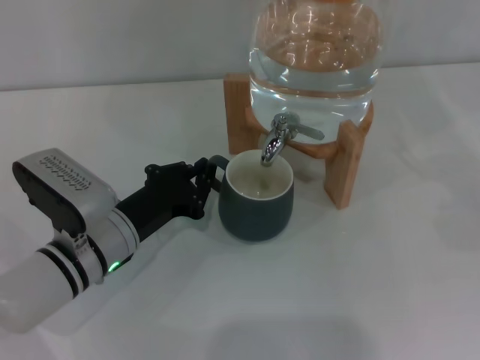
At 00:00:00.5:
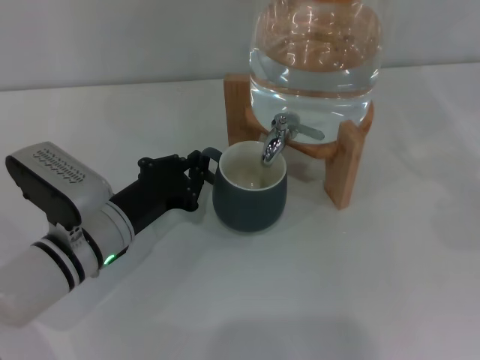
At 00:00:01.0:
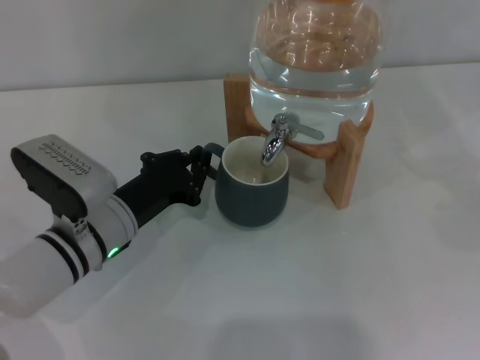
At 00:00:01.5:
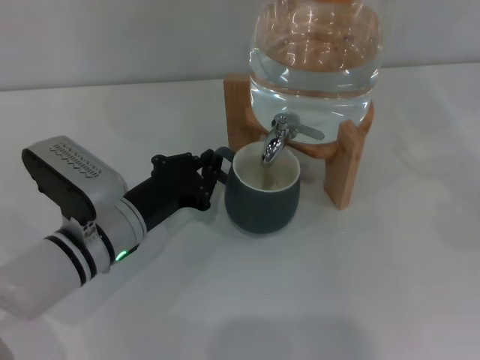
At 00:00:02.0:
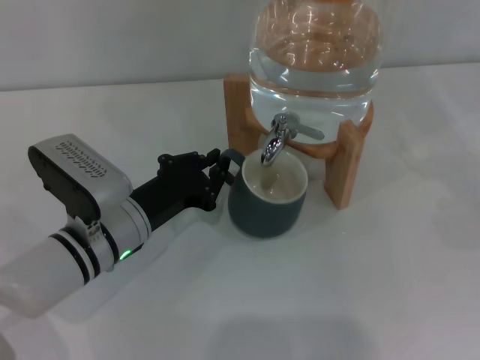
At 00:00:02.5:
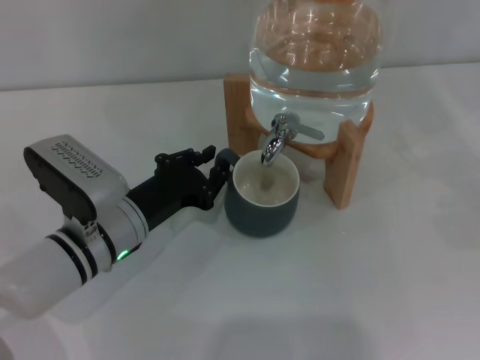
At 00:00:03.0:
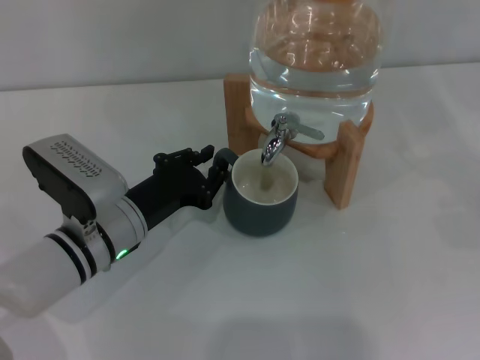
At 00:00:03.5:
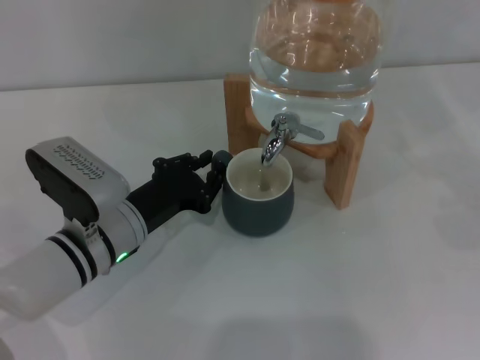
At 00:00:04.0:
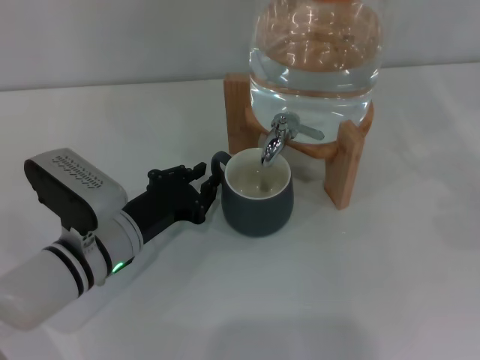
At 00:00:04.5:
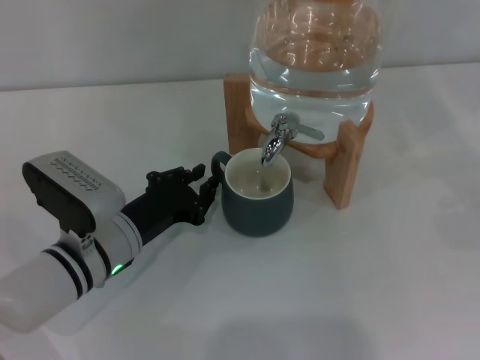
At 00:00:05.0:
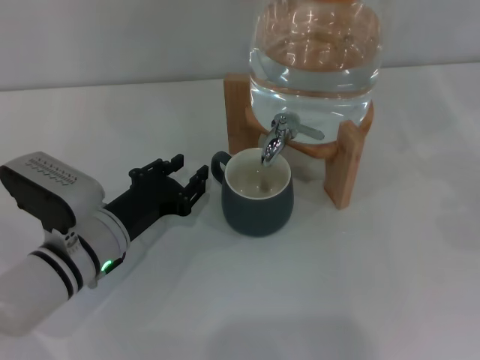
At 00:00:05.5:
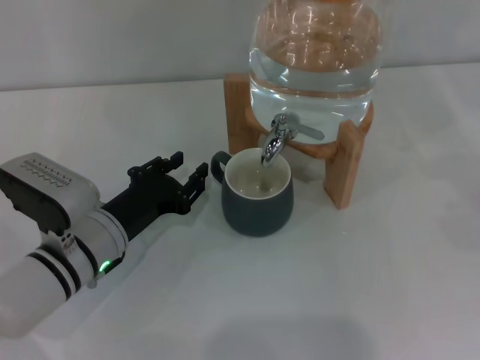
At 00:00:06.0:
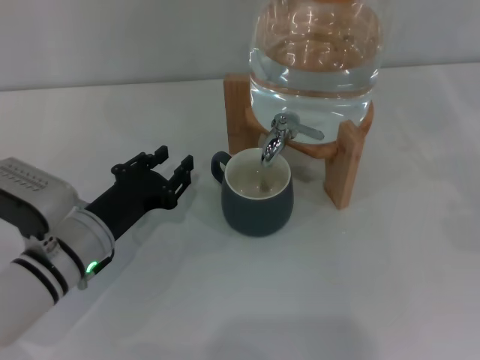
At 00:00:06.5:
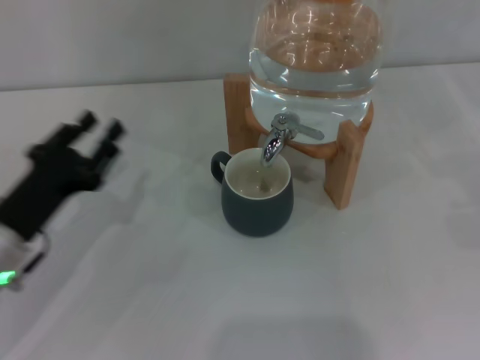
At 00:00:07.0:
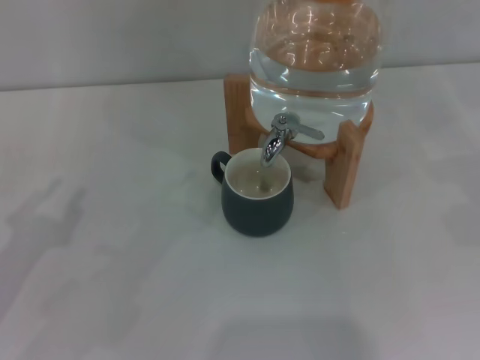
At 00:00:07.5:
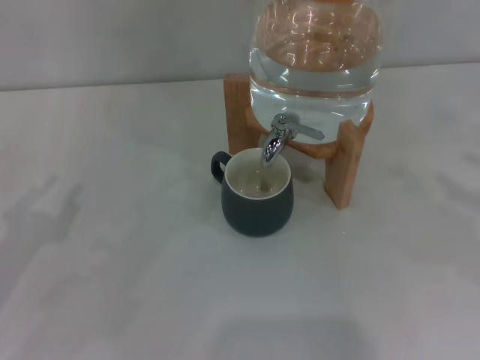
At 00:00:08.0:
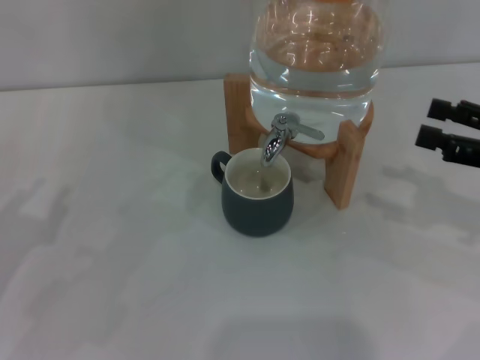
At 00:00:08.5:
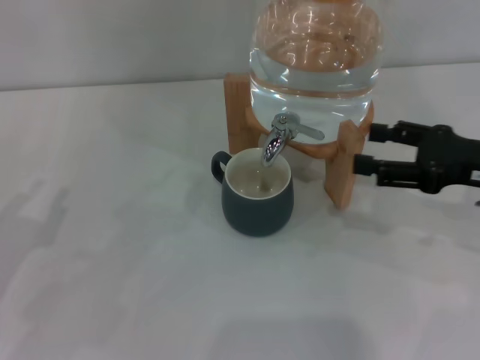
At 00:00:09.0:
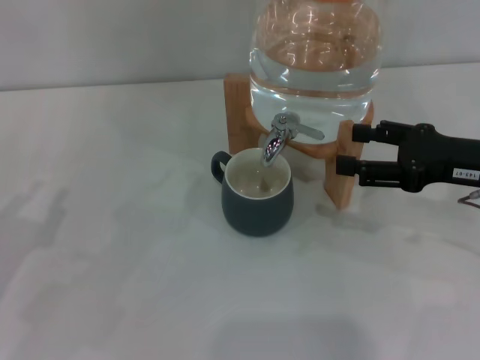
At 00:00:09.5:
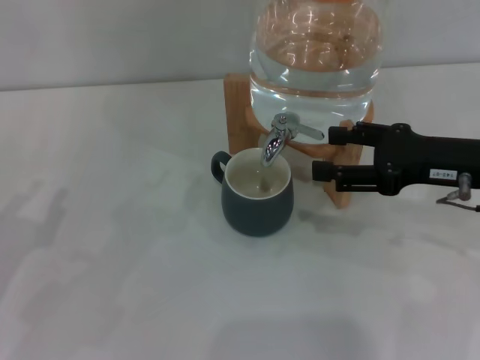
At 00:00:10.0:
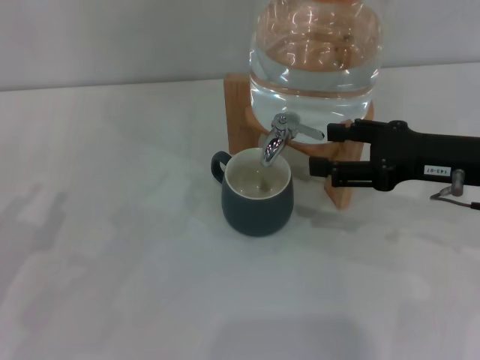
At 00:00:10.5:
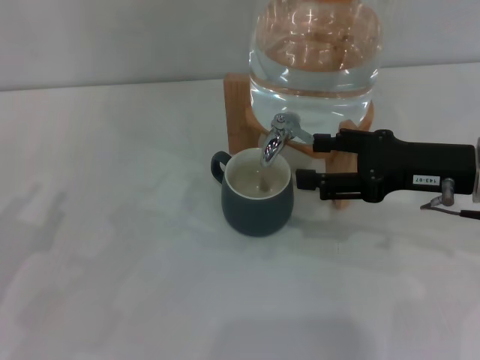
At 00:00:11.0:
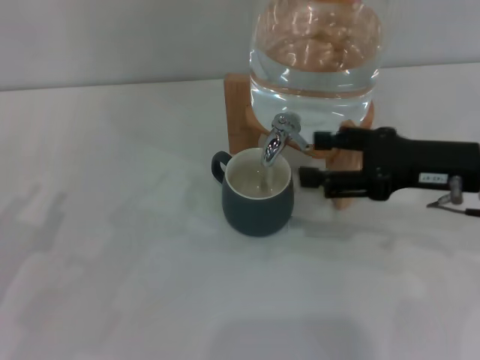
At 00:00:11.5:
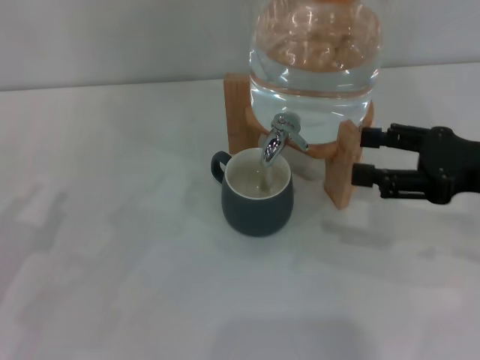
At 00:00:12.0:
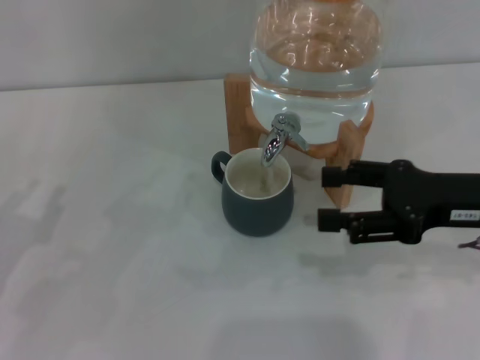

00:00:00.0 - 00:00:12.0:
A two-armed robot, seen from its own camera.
Task of the whole recording: the left gripper pick up the black cup and place it horizontally under the faucet, the right gripper turn on the faucet to fill the cup, and then turn off the faucet.
Step, 00:00:00.0 - 00:00:05.0: Move the cup beneath the water dispenser nozzle with the left gripper.
Step, 00:00:05.5 - 00:00:11.5: Open the dispenser valve and fill the cup with water with the right gripper.
00:00:00.0 - 00:00:06.0: There are only small adjustments of the grippers.
00:00:06.0 - 00:00:08.0: The left gripper is displaced to the left, backward and upward by about 15 cm. Meanwhile the right gripper moves to the left, approximately 10 cm.
00:00:08.0 - 00:00:10.0: The right gripper travels to the left by about 10 cm.
00:00:10.0 - 00:00:12.0: There are only small adjustments of the grippers.

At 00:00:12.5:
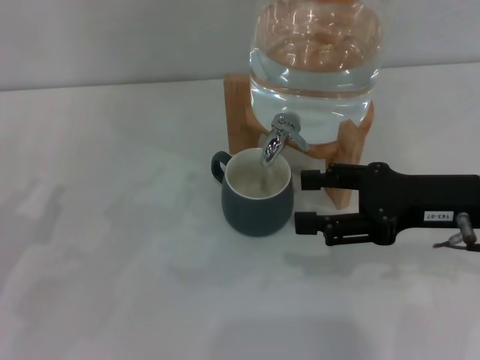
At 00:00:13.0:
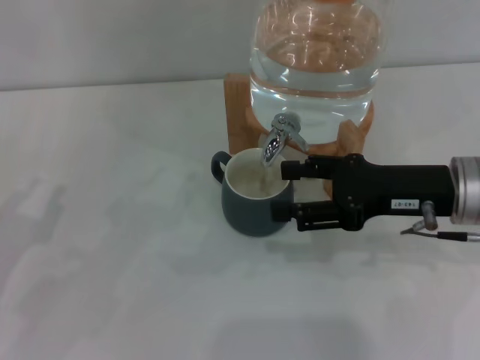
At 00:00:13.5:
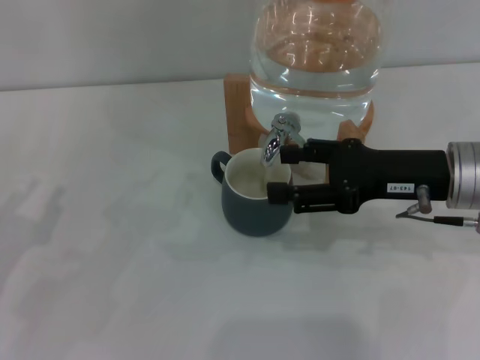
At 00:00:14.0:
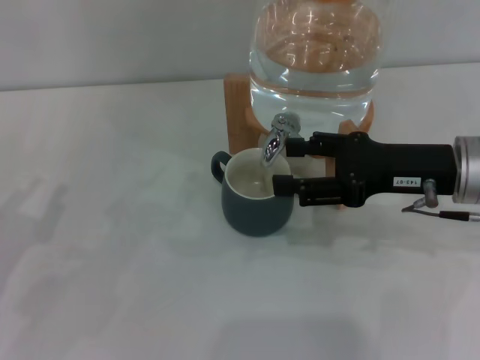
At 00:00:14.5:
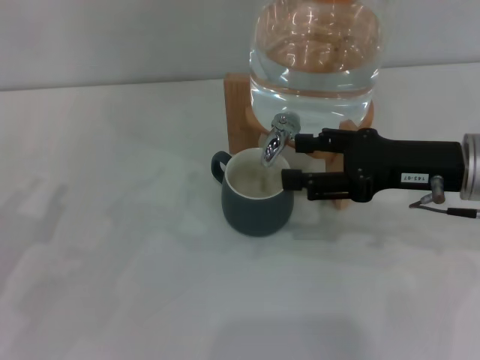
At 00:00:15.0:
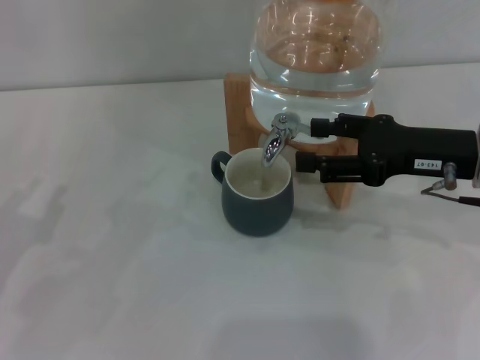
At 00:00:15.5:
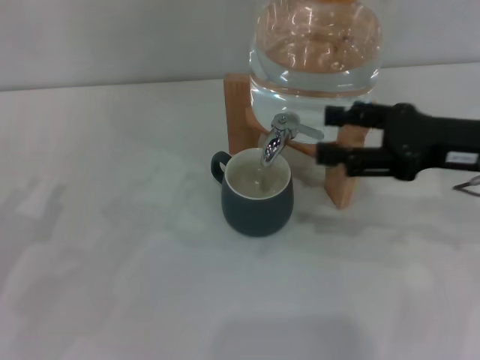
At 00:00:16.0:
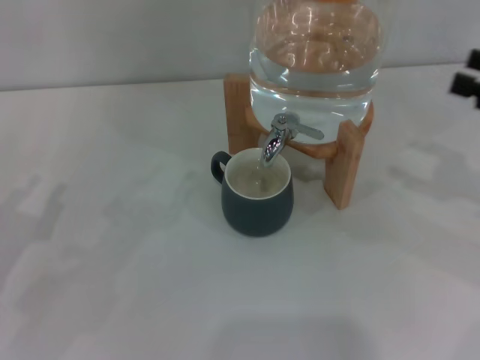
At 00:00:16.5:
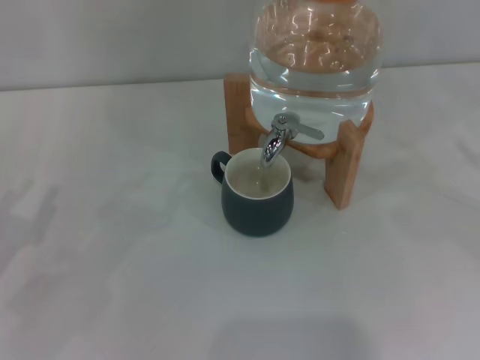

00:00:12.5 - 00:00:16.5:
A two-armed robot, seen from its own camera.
Task of the whole recording: the left gripper pick up the black cup and place it horizontally under the faucet, the right gripper turn on the faucet to fill the cup, and then turn off the faucet.
Step, 00:00:12.5 - 00:00:15.5: Close the dispenser valve with the right gripper.
00:00:12.5 - 00:00:14.5: The grippers move only a little.
00:00:14.5 - 00:00:16.5: The right gripper moves to the right, approximately 20 cm.
